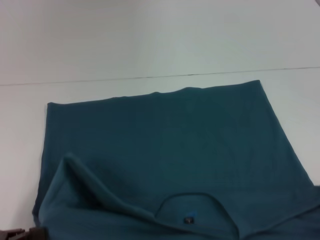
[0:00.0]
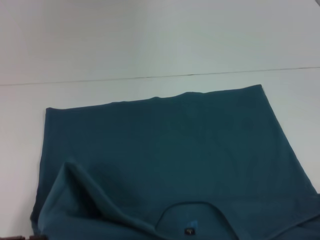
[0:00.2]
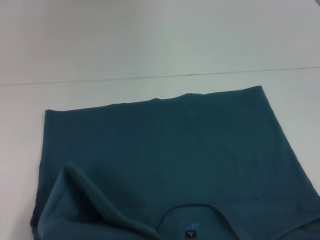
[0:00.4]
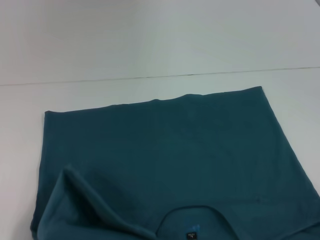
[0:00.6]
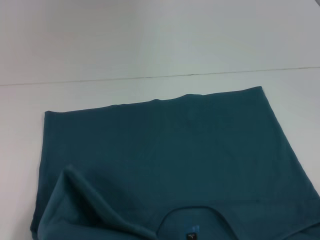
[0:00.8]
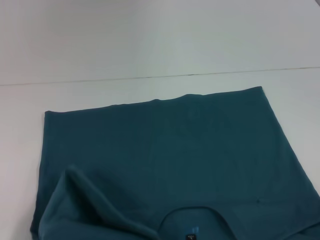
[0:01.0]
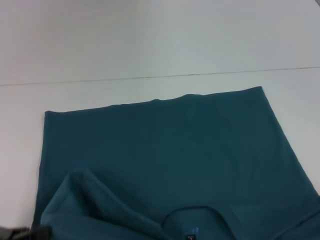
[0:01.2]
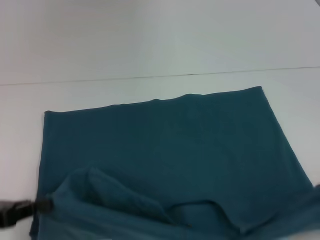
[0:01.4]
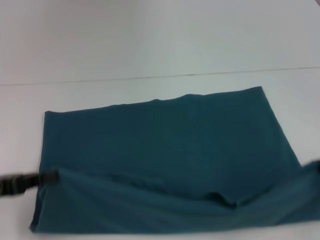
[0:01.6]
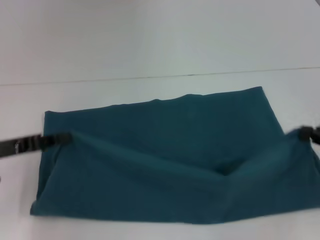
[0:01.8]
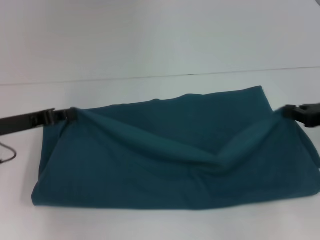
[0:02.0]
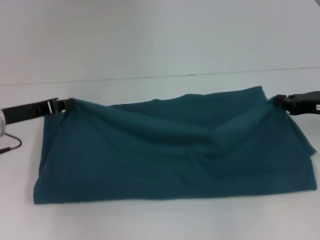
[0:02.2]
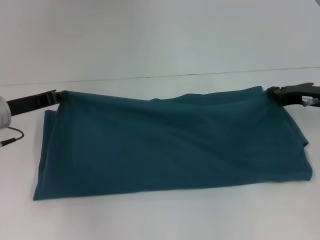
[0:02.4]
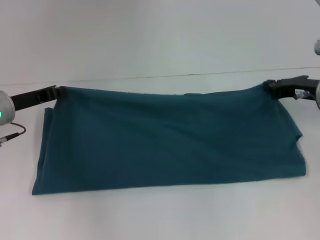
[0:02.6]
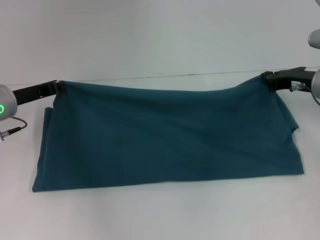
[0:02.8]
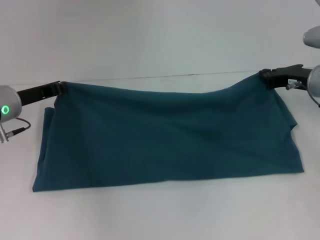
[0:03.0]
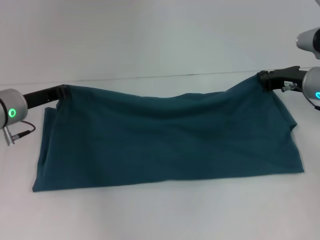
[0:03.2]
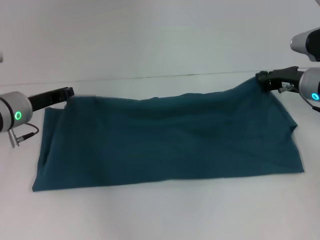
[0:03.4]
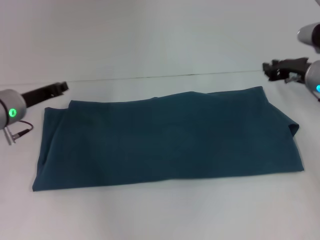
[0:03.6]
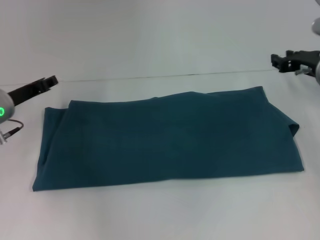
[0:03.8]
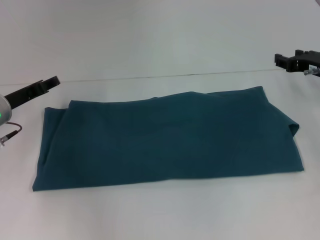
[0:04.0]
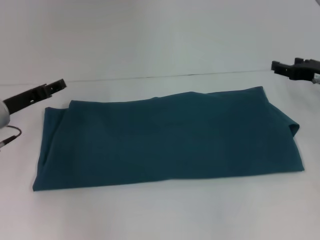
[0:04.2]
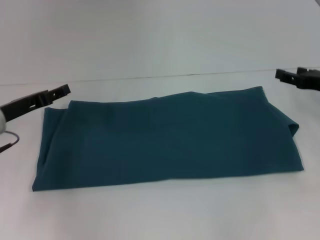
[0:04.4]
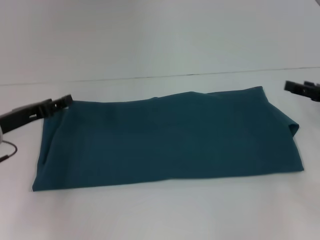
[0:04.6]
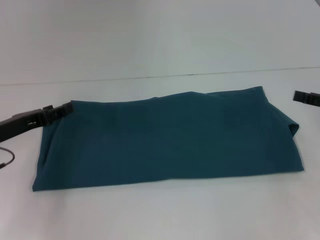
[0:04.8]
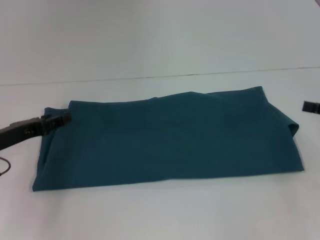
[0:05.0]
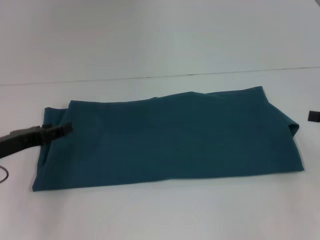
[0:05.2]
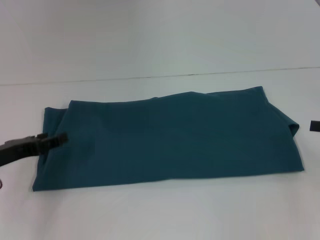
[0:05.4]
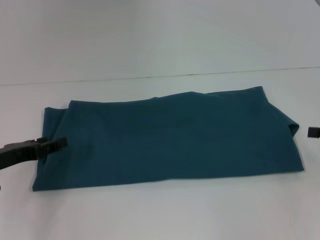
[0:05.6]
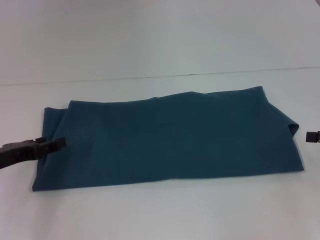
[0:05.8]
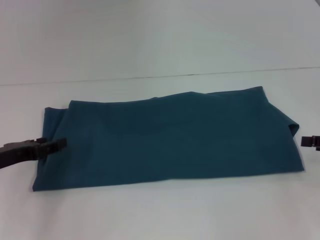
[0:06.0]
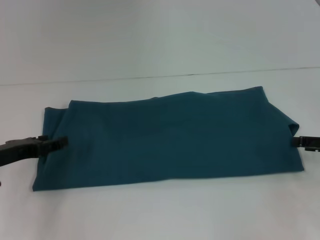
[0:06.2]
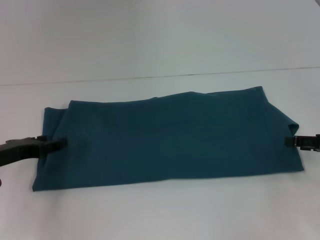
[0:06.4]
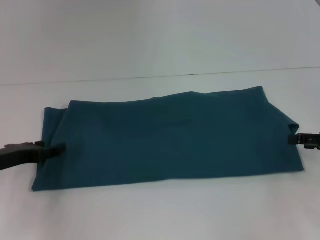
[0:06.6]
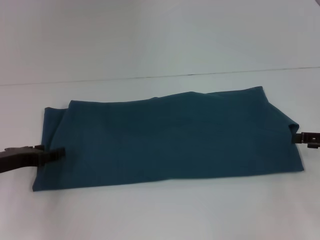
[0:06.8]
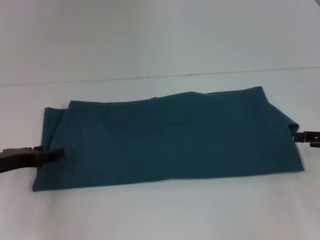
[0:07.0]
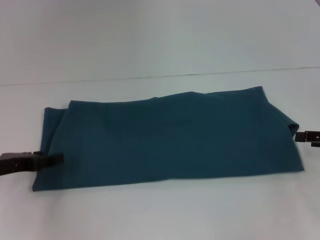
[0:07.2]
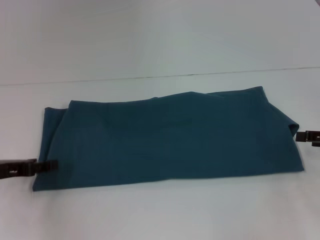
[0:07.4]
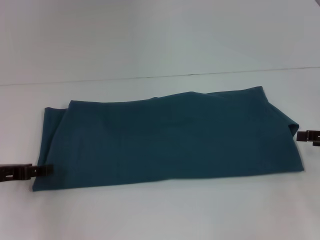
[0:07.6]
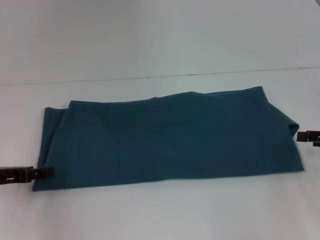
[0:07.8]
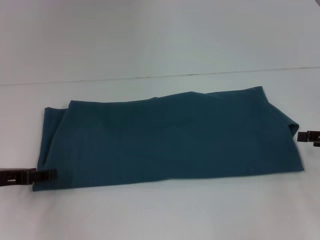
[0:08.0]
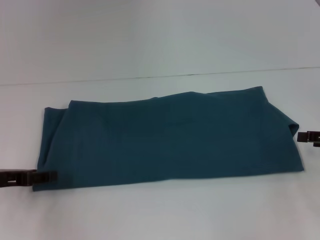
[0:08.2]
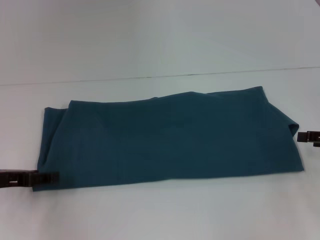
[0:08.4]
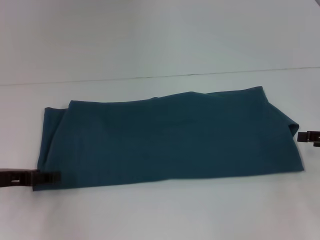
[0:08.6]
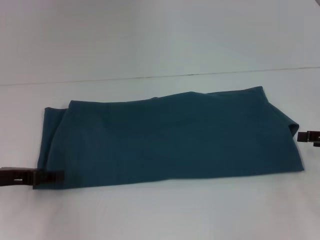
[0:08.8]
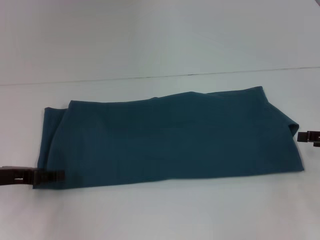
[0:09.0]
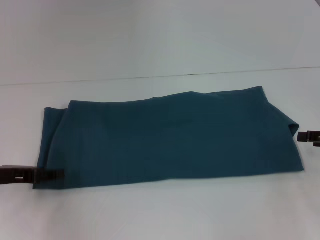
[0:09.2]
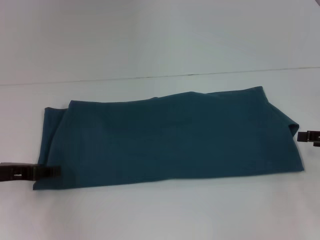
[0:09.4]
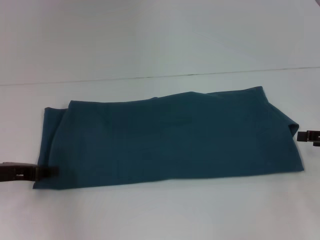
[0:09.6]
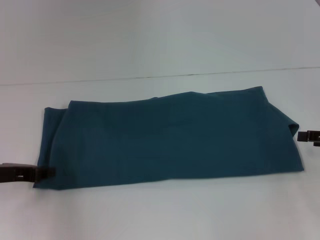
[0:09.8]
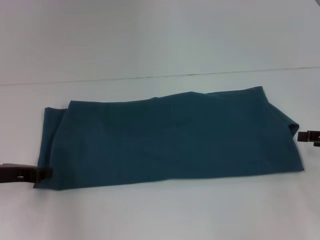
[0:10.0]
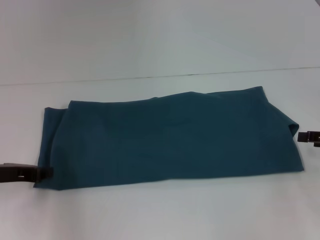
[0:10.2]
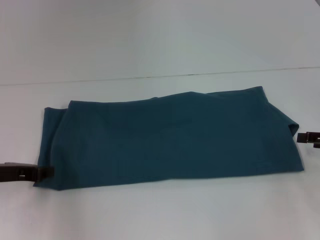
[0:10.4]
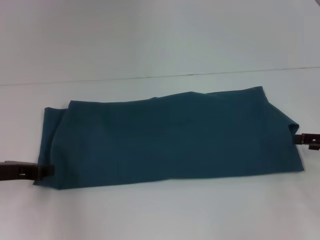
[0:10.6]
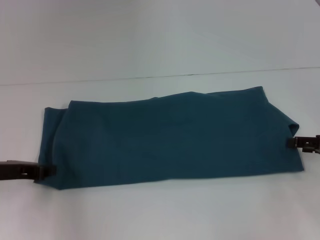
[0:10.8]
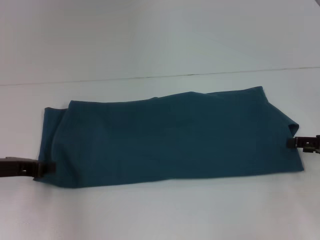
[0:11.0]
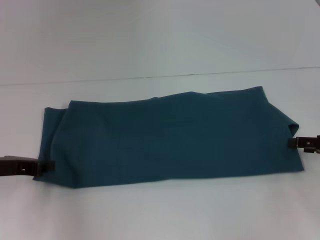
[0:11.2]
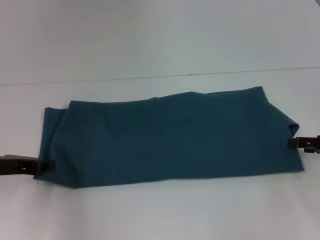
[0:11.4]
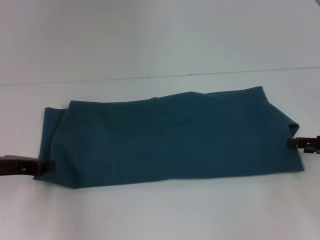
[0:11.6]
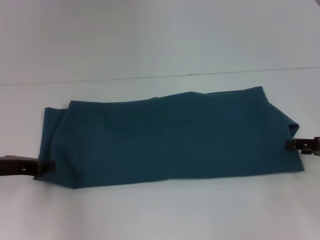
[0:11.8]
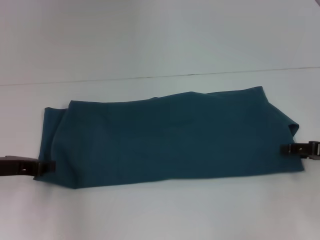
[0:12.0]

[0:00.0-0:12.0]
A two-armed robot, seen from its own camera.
Step, 0:00.0 to 0:03.6: Fold the clothes to the right.
0:00.0 to 0:01.6: The two grippers go roughly 5 cm forward.
0:01.6 to 0:03.0: The left gripper is displaced forward and to the right by approximately 15 cm; the right gripper goes approximately 20 cm forward and to the left.
0:03.0 to 0:04.4: The left gripper opens up. The right gripper is displaced to the right by roughly 5 cm, and opens.
0:04.4 to 0:06.0: Both grippers move backward, about 5 cm.
0:06.0 to 0:07.6: The grippers move only a little.
0:09.0 to 0:10.4: The left gripper closes.
0:10.4 to 0:12.0: The grippers move only a little.

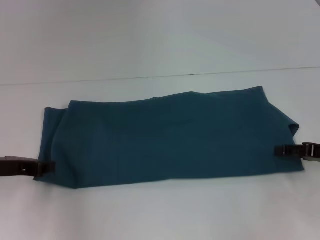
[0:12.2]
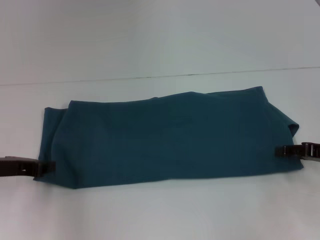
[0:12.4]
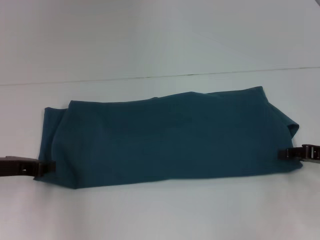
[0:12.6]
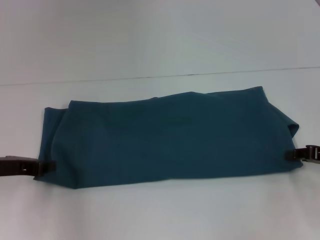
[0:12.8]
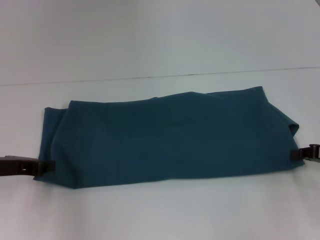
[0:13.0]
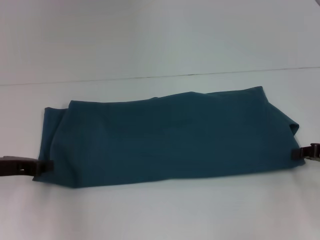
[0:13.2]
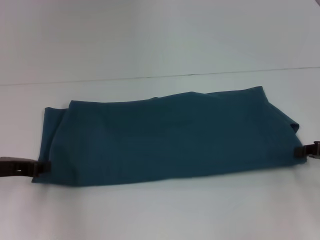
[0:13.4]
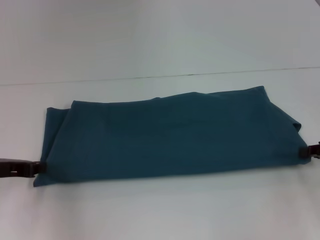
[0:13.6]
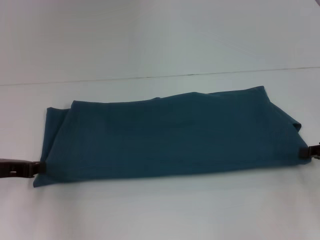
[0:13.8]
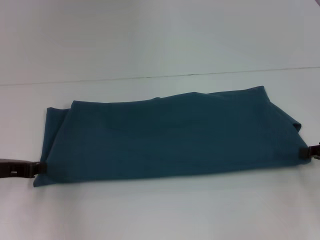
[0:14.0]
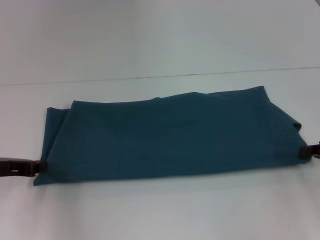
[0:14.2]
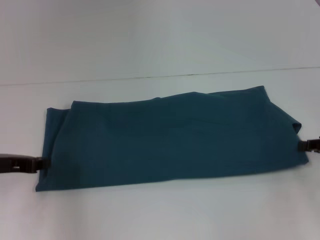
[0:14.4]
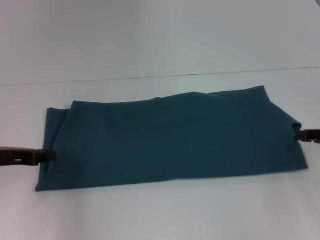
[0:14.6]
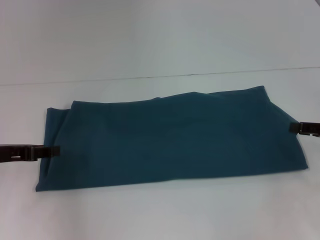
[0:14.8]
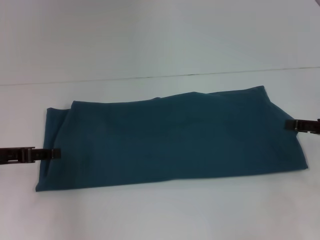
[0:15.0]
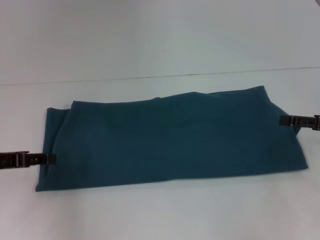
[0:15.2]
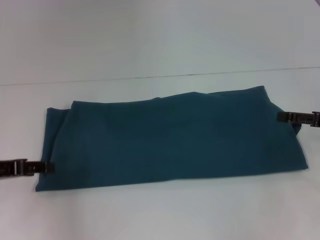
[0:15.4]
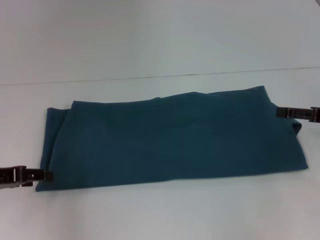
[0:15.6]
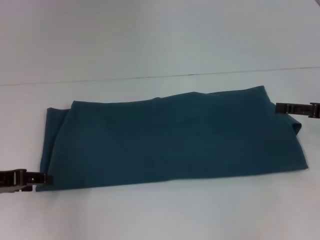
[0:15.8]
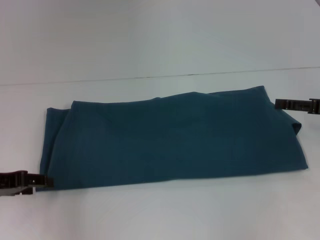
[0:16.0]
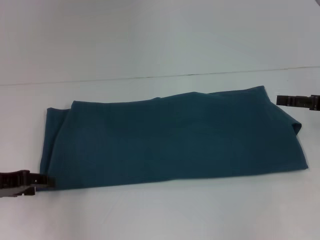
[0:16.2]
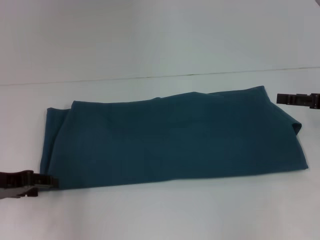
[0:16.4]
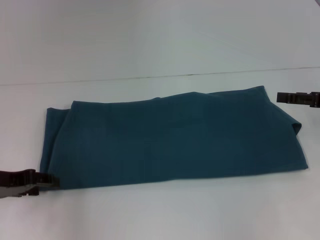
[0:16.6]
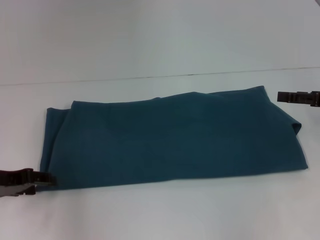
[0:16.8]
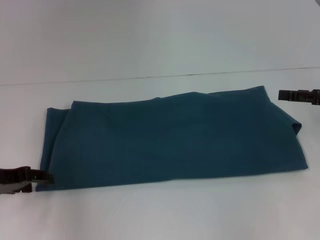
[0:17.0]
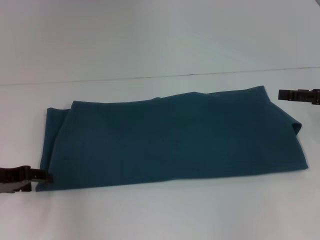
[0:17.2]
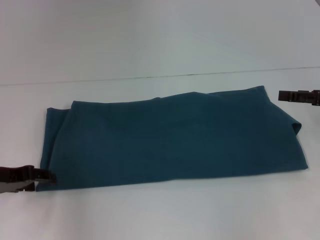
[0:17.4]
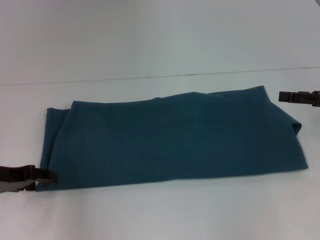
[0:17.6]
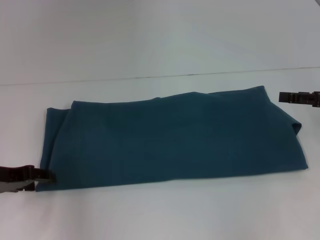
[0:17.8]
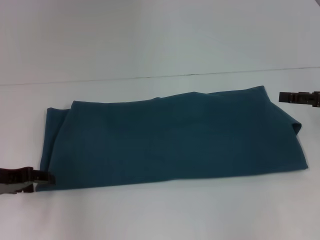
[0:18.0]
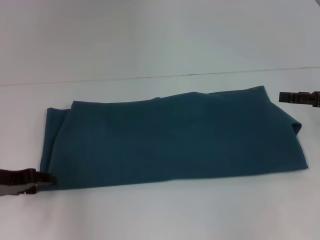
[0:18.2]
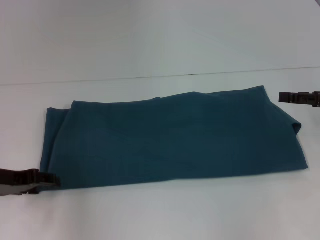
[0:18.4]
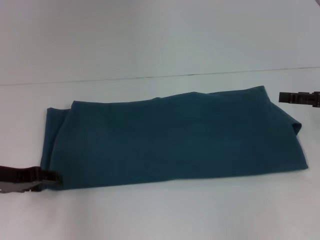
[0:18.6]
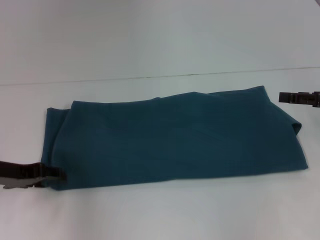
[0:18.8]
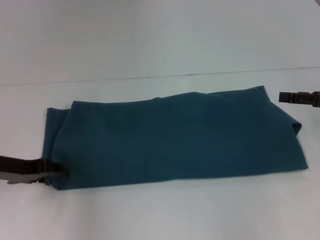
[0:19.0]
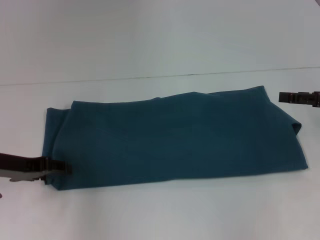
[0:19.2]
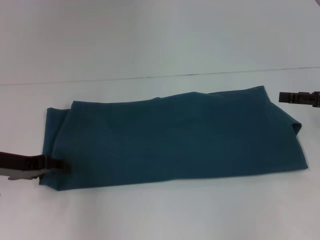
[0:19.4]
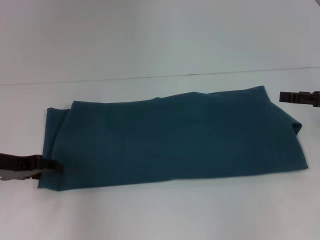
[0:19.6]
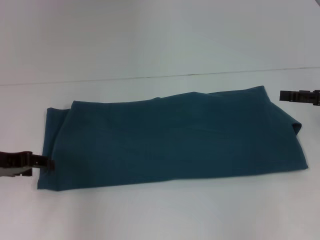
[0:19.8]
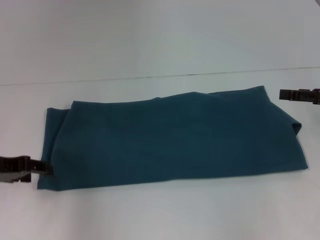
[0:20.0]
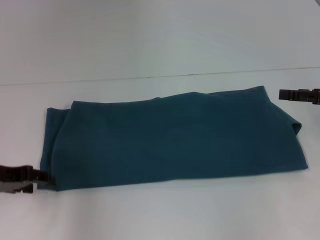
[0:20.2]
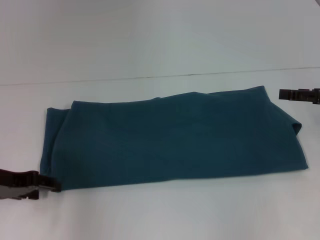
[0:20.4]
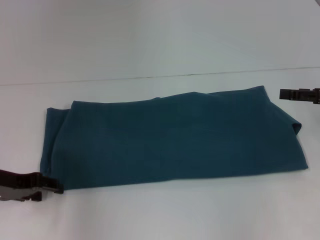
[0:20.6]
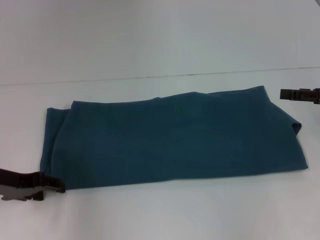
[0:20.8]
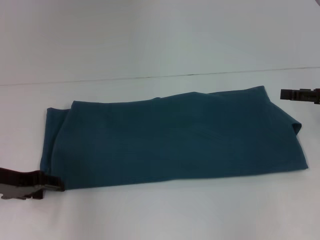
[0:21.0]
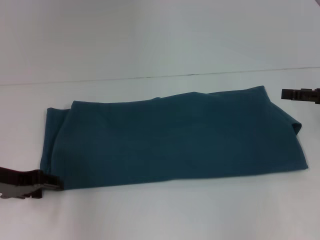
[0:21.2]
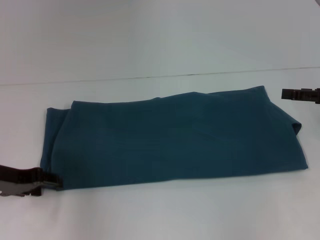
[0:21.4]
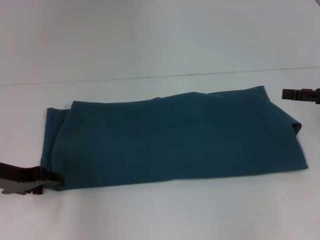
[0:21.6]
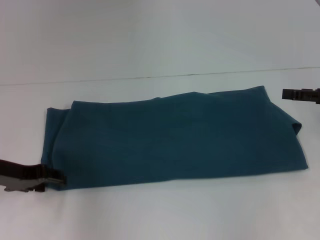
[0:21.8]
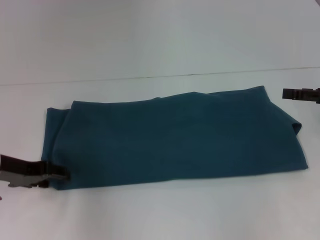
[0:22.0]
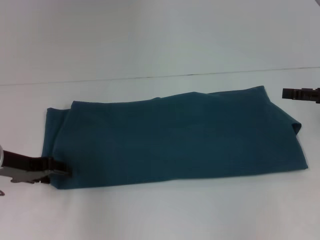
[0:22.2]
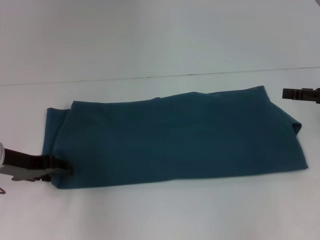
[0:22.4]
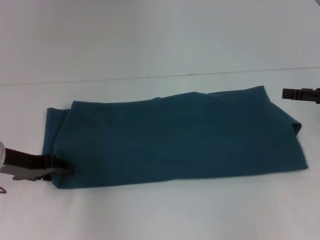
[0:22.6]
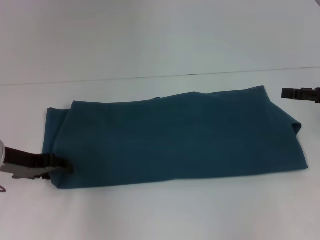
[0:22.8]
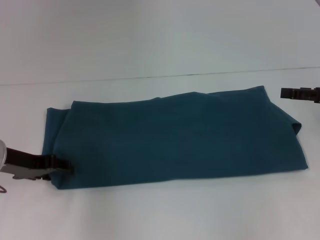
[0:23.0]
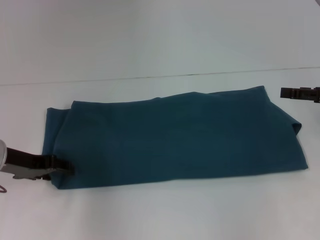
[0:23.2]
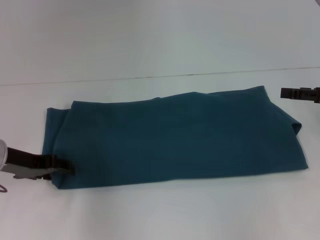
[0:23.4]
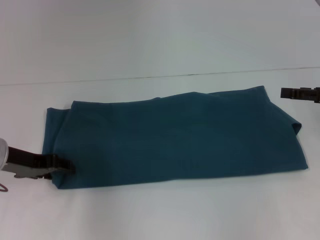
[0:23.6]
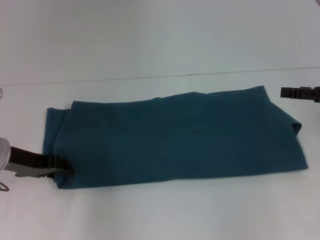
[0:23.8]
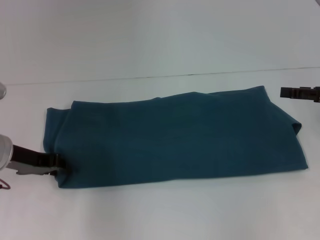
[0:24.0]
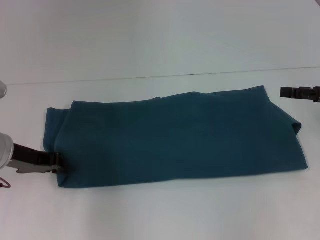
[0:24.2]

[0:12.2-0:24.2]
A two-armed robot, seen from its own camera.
0:12.2 to 0:13.8: The right gripper closes.
0:13.8 to 0:15.2: The right gripper opens up; the left gripper opens.
0:15.2 to 0:16.6: The grippers stay close to where they were, moving slightly.
0:16.6 to 0:18.2: Neither gripper changes place.
0:18.2 to 0:24.2: The grippers make only small movements.
